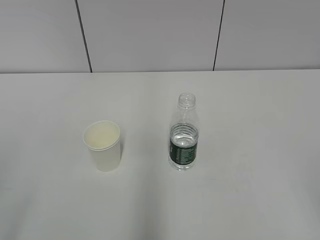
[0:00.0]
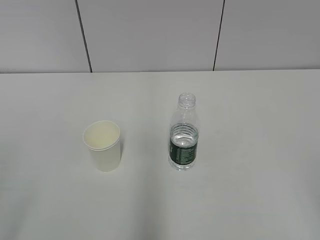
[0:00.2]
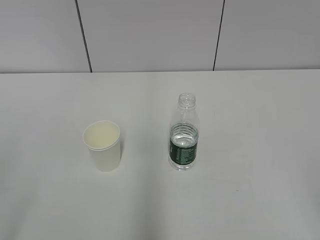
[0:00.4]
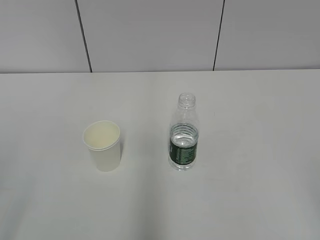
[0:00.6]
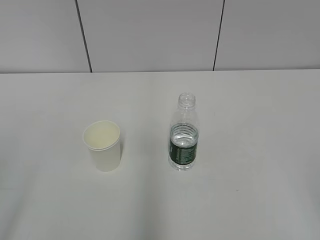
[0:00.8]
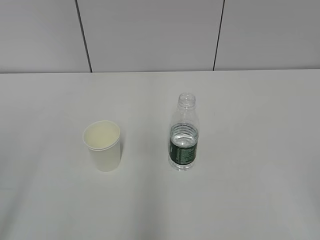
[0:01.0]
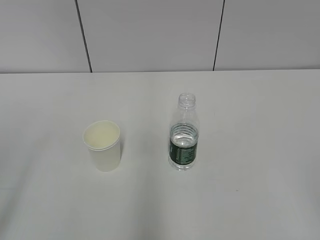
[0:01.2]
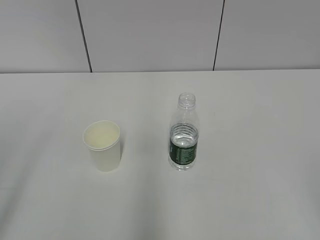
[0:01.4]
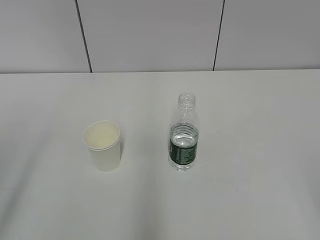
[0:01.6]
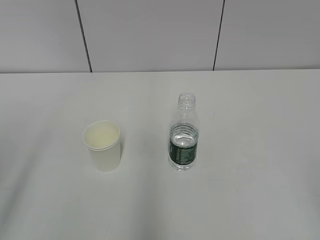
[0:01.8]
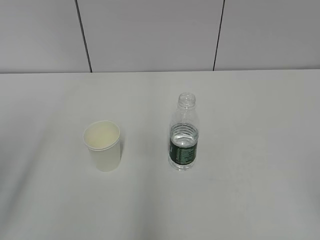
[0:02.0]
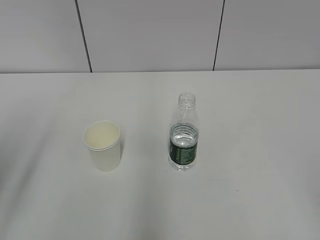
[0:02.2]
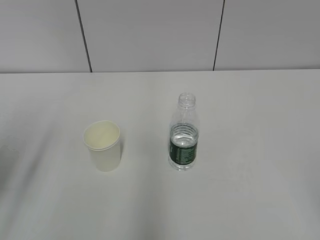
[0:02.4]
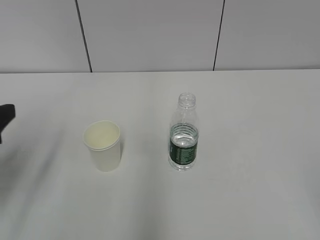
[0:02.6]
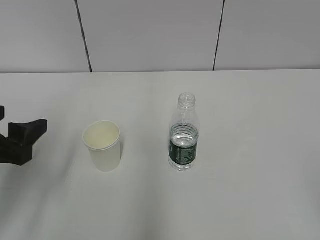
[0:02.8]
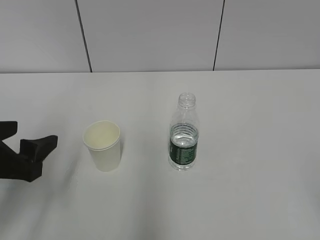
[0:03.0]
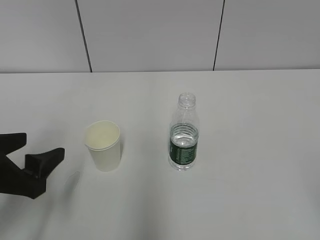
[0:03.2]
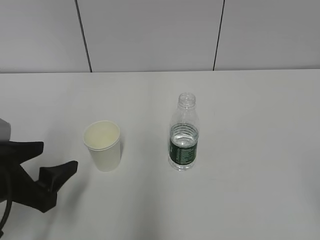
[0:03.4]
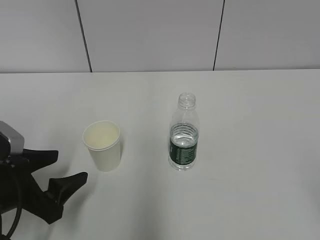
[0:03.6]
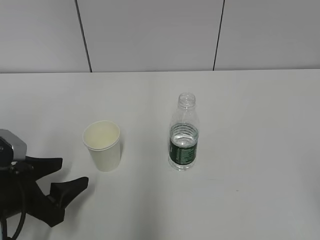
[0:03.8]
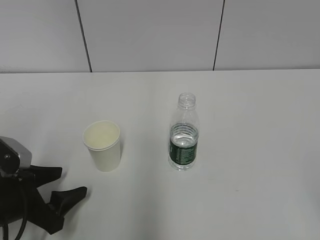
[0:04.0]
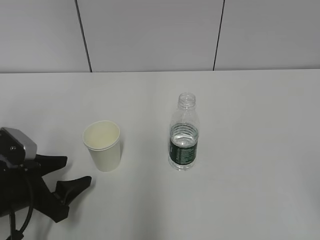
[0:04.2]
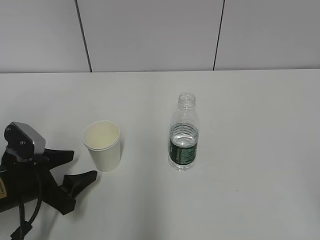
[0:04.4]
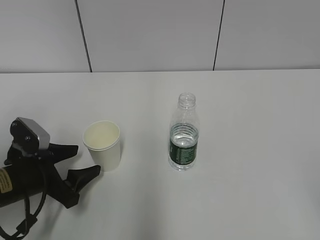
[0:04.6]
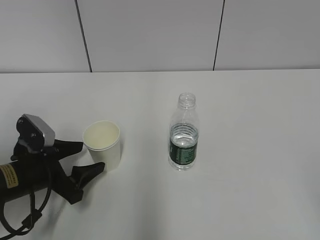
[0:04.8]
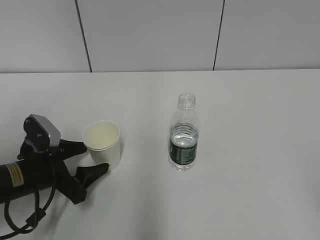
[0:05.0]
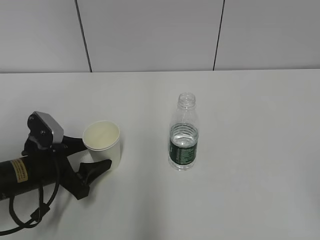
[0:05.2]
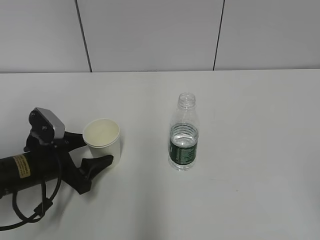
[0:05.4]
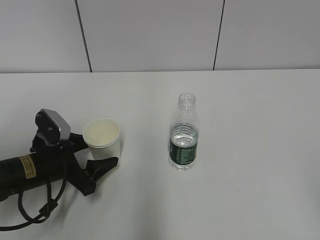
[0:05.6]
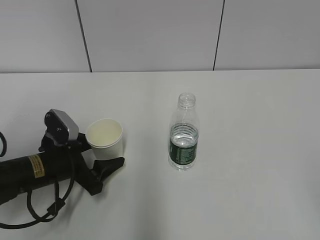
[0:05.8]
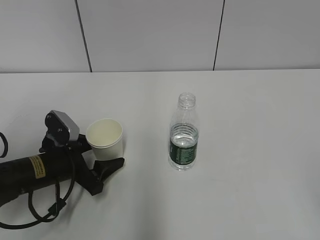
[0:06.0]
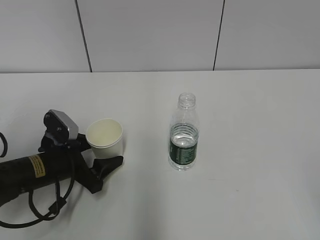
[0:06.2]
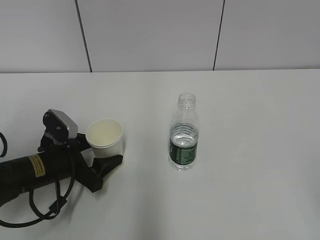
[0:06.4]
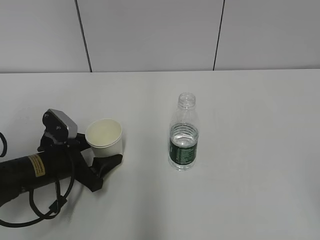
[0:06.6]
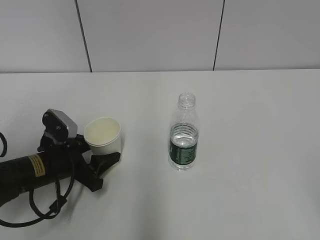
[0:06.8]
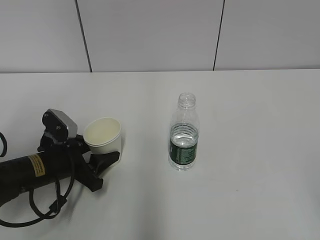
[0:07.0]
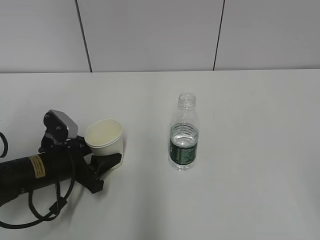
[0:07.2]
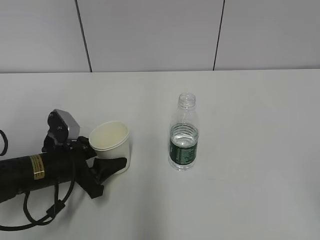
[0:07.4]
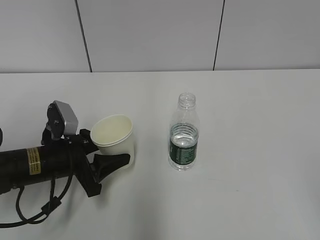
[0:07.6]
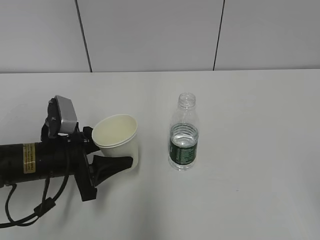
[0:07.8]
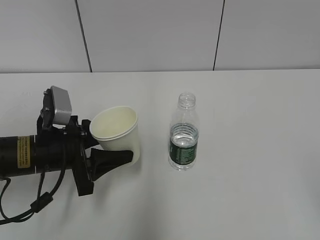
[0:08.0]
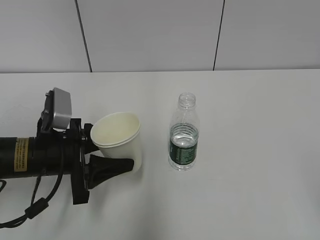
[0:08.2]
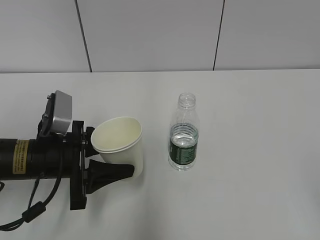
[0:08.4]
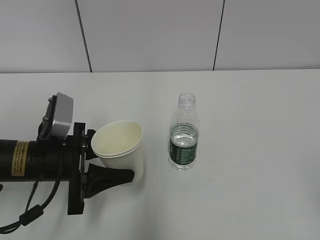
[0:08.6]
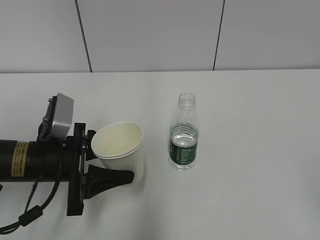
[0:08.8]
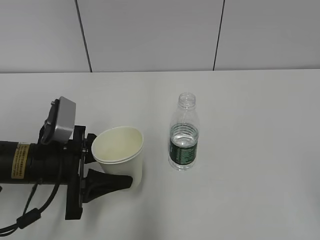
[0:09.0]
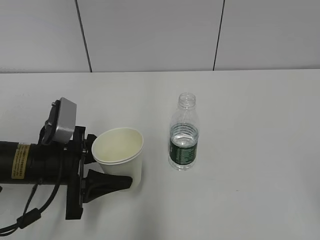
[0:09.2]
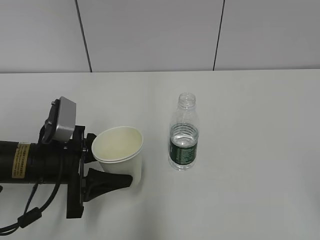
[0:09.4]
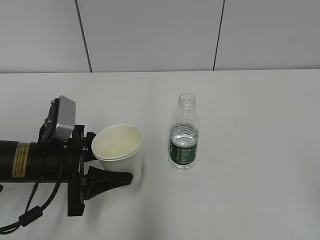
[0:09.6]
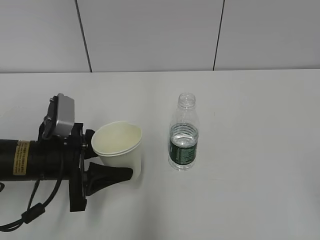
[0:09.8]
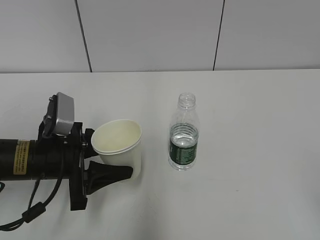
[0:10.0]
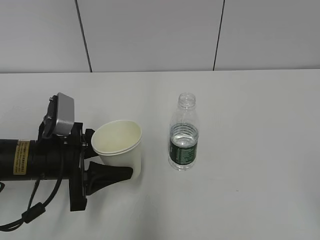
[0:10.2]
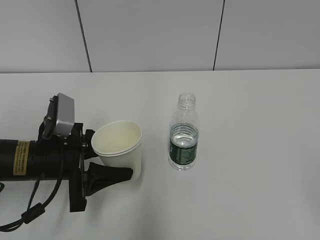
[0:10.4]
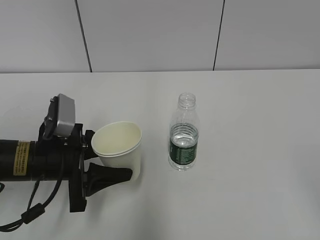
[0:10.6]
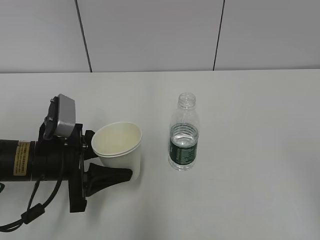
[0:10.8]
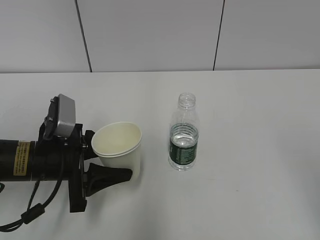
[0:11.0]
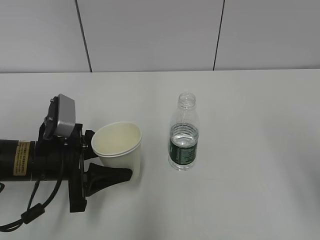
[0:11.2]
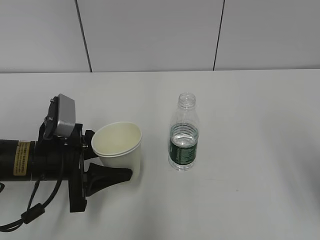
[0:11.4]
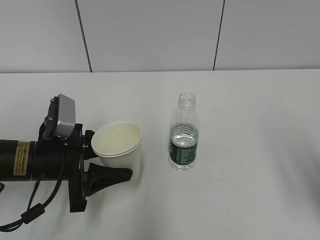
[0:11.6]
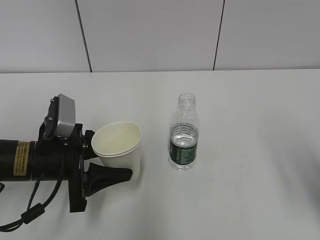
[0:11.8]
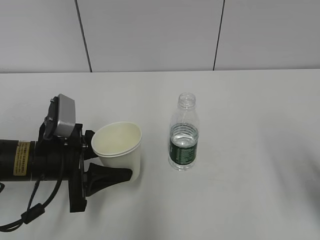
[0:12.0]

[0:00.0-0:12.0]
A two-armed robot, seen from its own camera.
Step, 0:00.0 to 0:05.8: Grab the paper cup with the left hand.
0:01.6 to 0:03.0: The left gripper moves forward, downward and to the right, about 15 cm.
0:03.0 to 0:04.4: The left gripper heads downward, covering approximately 10 cm.
0:04.4 to 0:06.0: The left gripper moves forward, about 5 cm.
0:06.0 to 0:07.6: The left gripper closes up.
0:07.6 to 0:09.0: The grippers move only a little.
0:09.0 to 0:10.4: The right gripper opens its fingers.
0:10.4 to 0:12.0: The right gripper heads forward, covering approximately 15 cm.

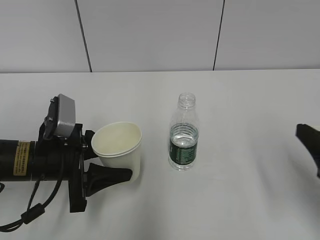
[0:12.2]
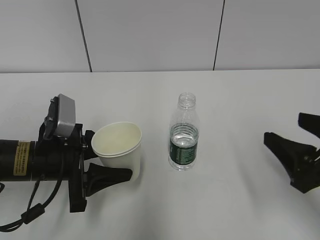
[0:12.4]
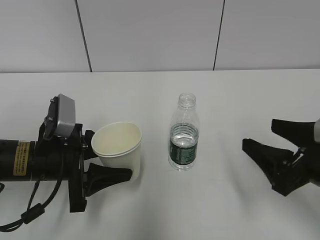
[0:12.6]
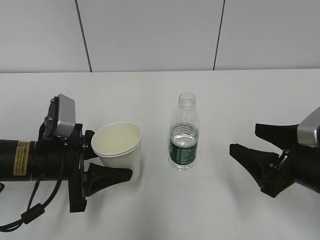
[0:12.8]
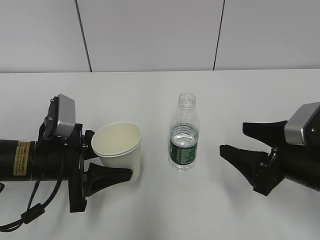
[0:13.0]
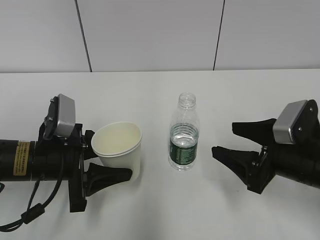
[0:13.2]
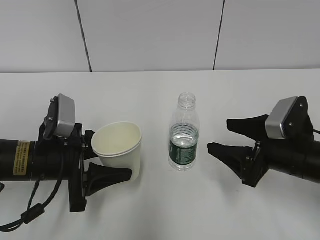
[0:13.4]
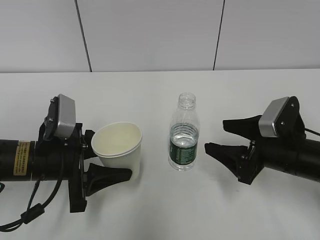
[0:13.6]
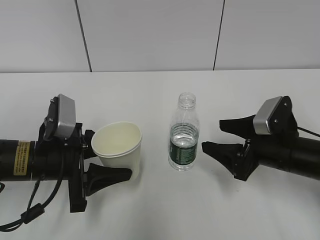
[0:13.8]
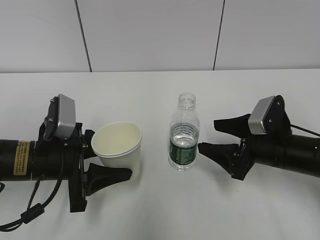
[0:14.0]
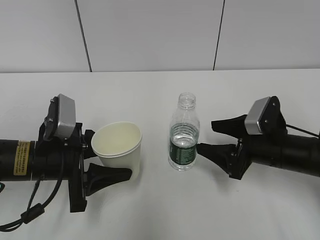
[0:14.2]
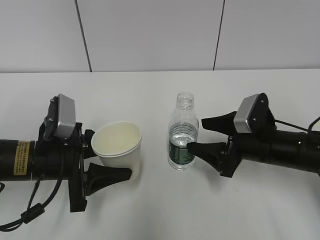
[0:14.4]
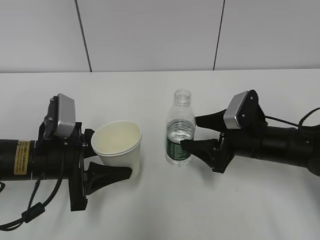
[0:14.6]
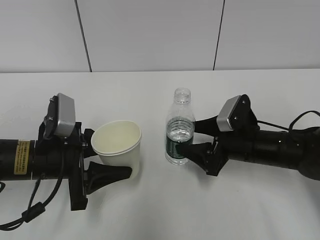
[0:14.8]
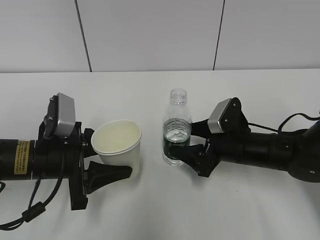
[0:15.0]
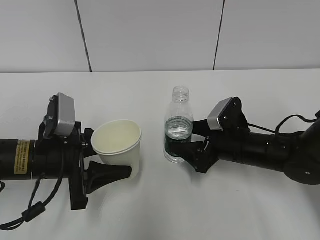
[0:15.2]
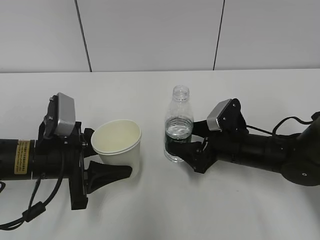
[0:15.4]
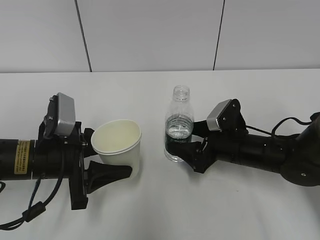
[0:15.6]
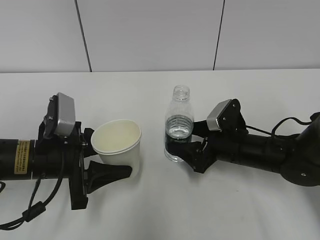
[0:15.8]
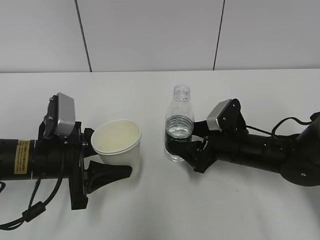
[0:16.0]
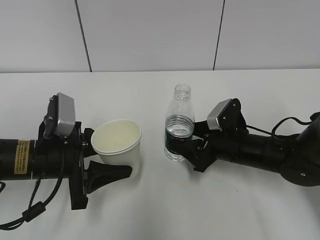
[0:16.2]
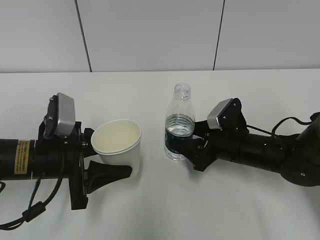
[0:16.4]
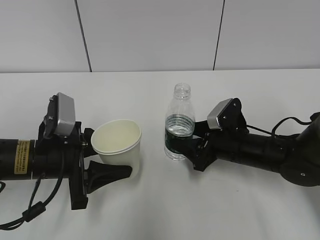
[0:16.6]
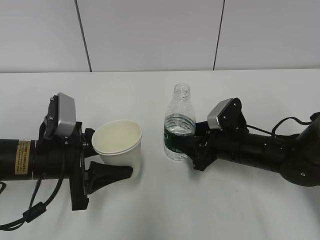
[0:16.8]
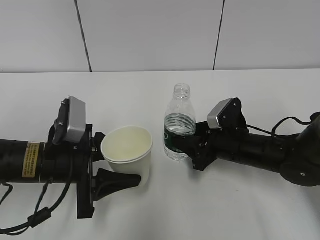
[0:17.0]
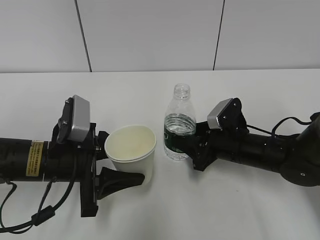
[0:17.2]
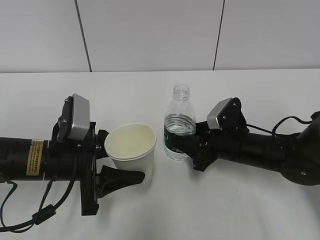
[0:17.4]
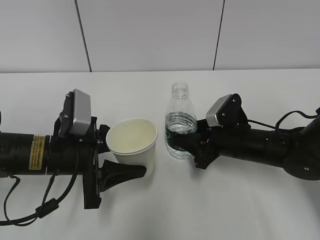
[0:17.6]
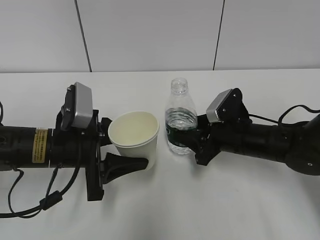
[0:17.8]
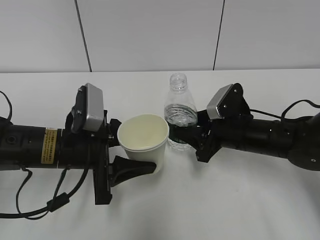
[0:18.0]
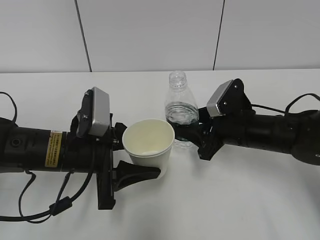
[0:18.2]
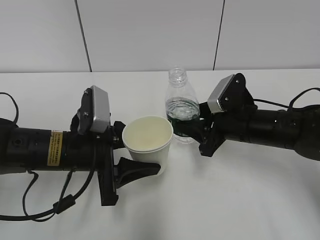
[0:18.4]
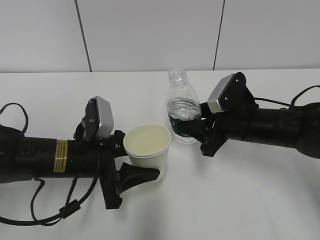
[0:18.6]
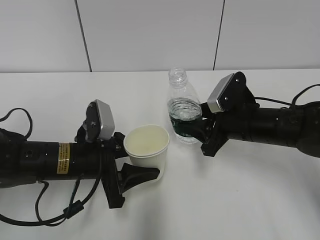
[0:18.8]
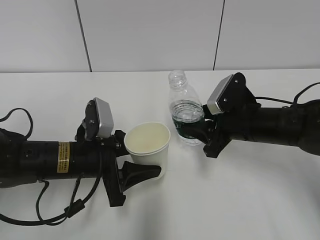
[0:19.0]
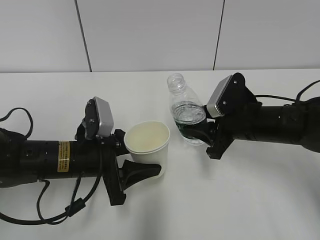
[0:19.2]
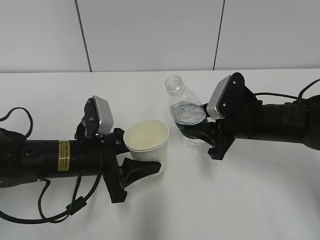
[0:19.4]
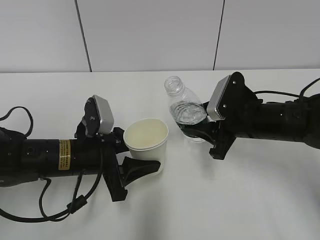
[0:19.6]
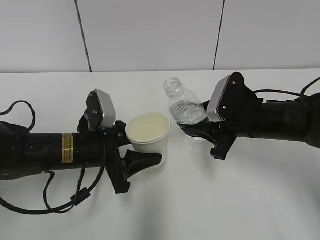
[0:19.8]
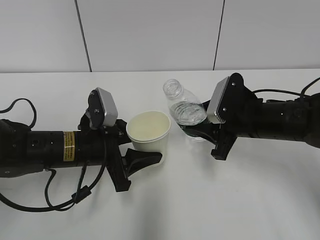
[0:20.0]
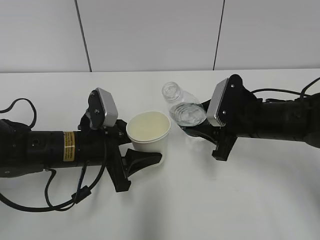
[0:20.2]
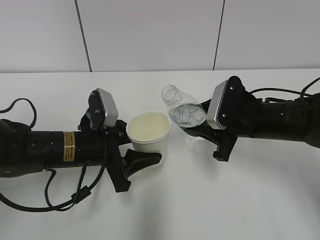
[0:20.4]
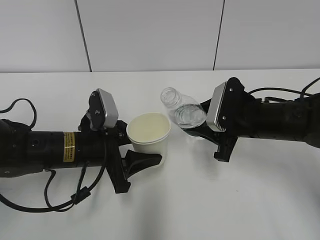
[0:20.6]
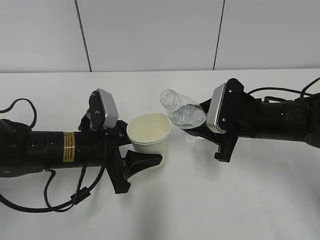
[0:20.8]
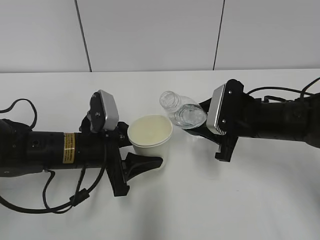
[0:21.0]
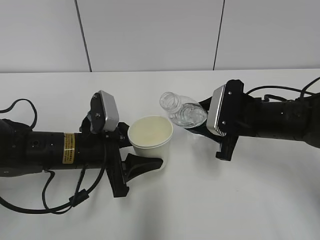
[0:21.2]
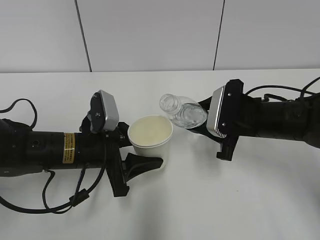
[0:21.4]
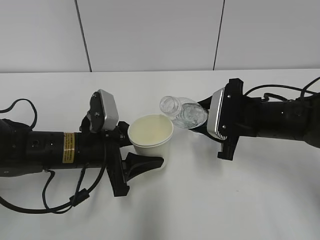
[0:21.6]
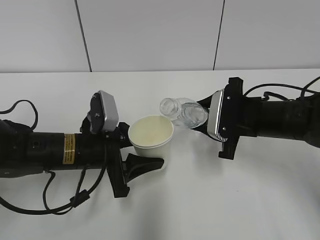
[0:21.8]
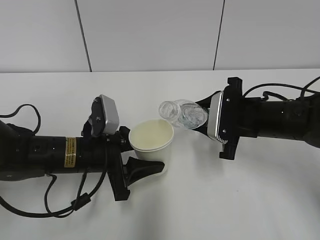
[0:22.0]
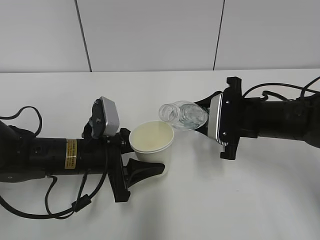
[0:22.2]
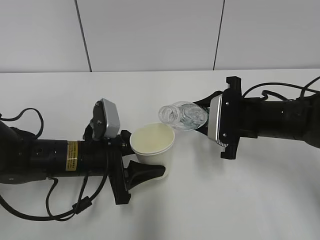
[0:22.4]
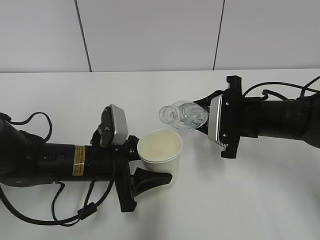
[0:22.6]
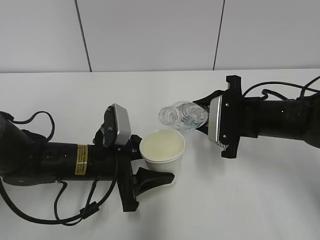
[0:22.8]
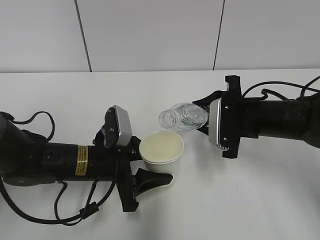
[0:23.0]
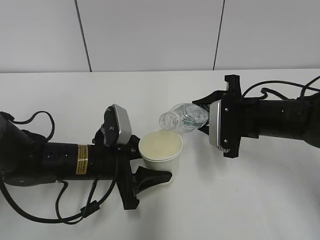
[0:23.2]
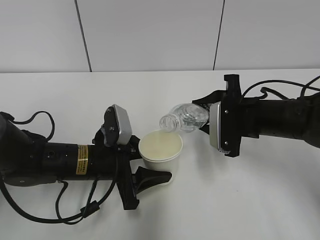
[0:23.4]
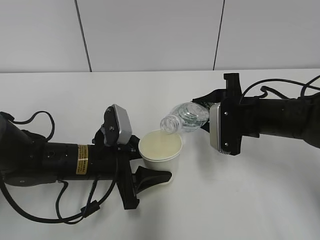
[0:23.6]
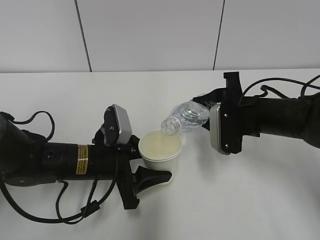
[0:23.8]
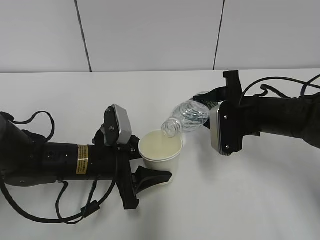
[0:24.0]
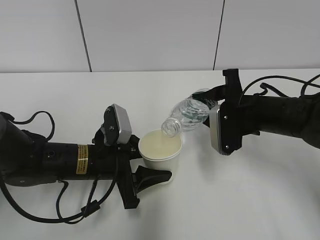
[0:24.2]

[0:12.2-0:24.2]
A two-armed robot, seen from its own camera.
Step, 0:12.2 to 0:14.6: Grab the water bottle with the right hand.
Step, 0:14.8 to 0:20.6: Lift the paper cup with the left hand.
0:12.2 to 0:13.8: The right gripper is displaced forward and downward by approximately 15 cm.
0:13.8 to 0:15.2: The right gripper moves to the left, about 5 cm.
0:15.2 to 0:16.6: The right gripper closes.
0:18.2 to 0:19.8: The grippers stay close to where they were, moving slightly.
0:19.8 to 0:21.2: The grippers move only a little.
0:21.2 to 0:22.6: The grippers make only small movements.
